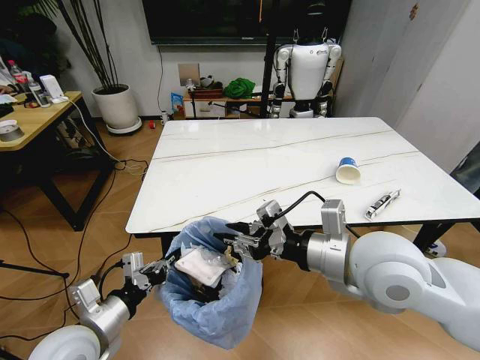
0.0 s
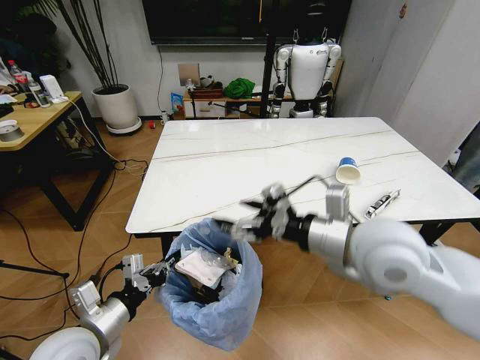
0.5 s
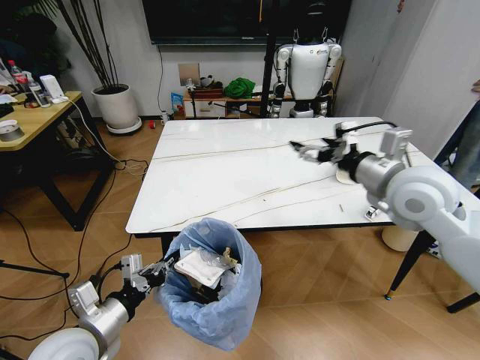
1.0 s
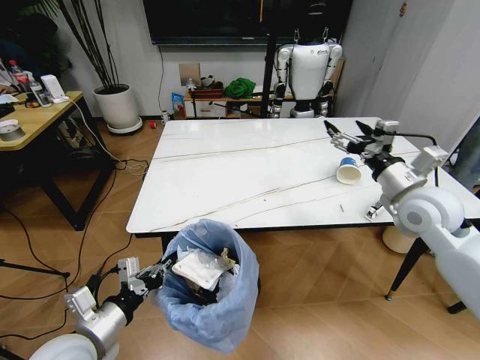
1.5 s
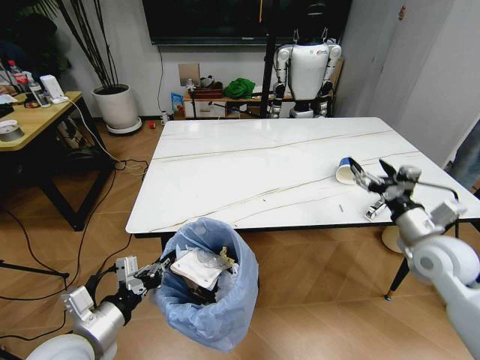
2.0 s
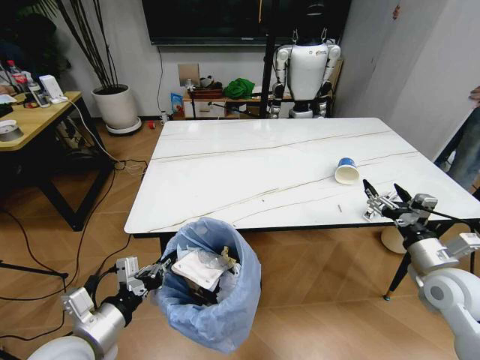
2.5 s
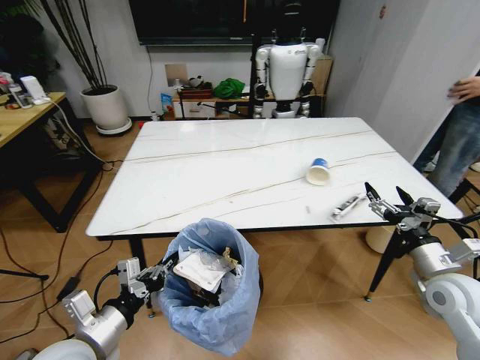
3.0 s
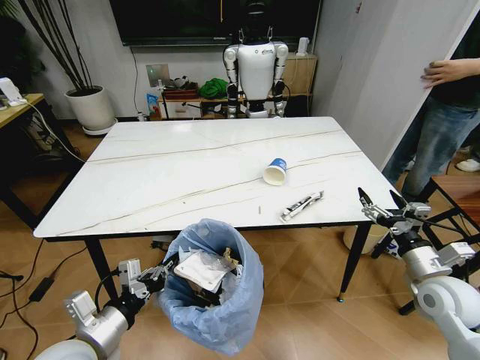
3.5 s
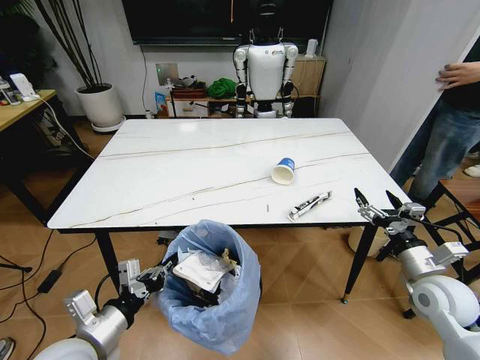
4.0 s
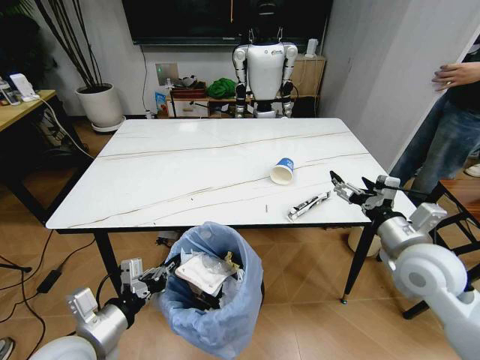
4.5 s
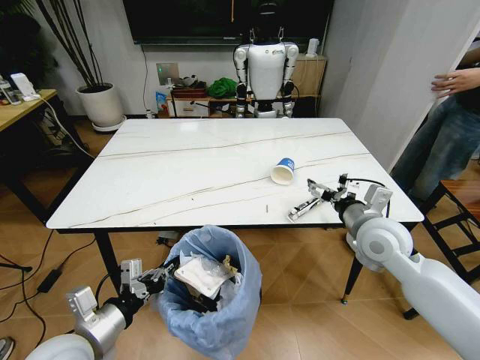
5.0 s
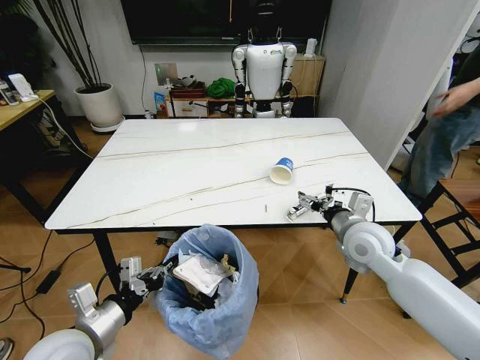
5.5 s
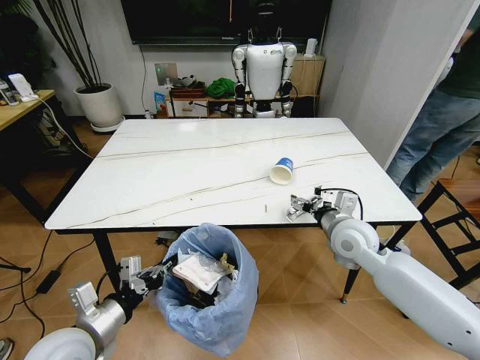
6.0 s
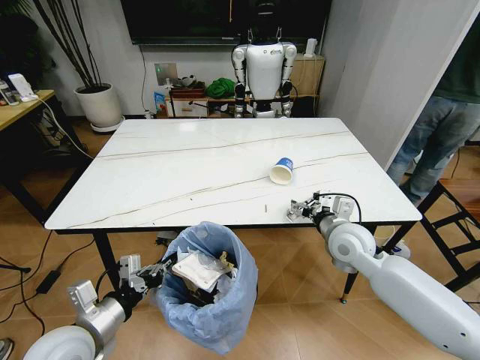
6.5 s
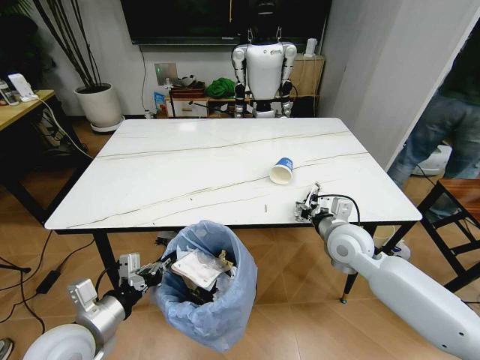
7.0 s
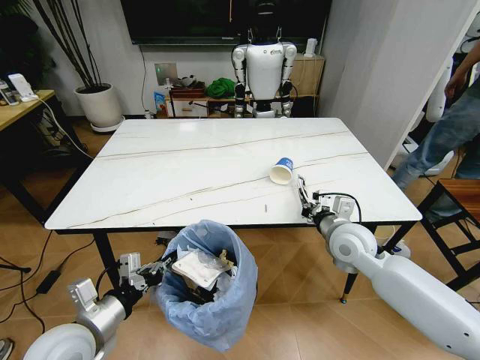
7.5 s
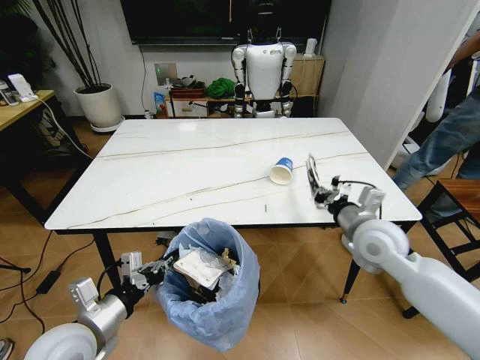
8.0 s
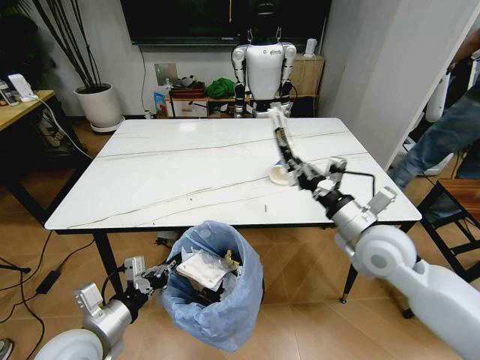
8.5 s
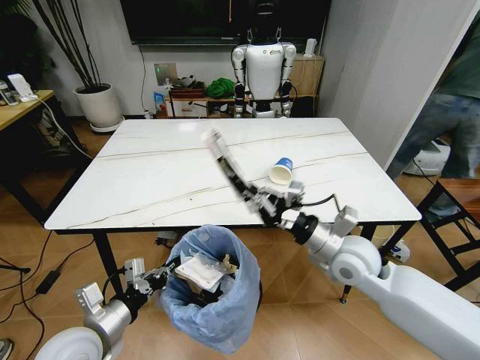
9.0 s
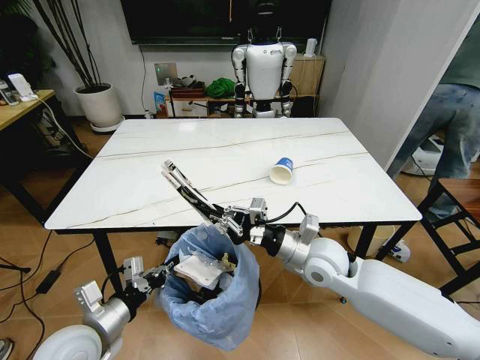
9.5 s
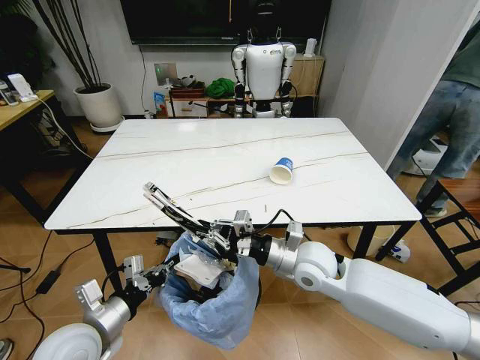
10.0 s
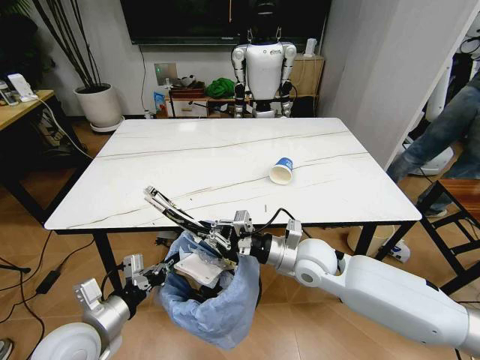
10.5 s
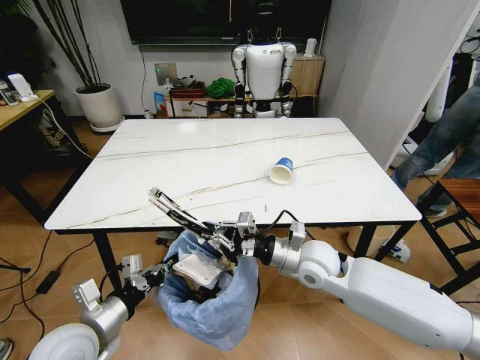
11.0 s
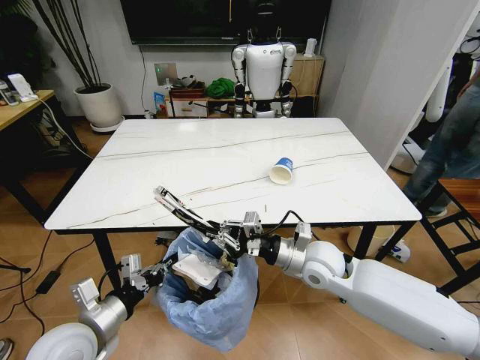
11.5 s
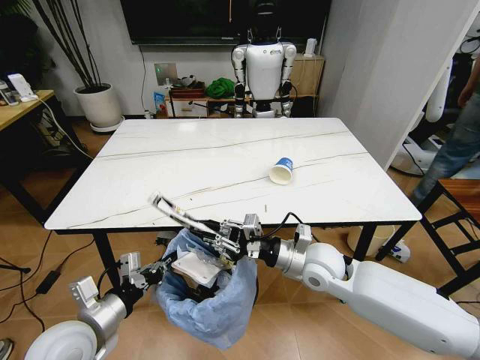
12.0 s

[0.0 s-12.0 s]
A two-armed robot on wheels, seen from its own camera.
Task of the whole recording: Pick up the trash bin and place the trash from the table into it.
0.0 to 2.0 s: The right gripper is displaced to the right and downward by some 20 cm, and opens its fingers.
2.0 to 4.0 s: The right gripper shifts some 10 cm downward and backward.
4.0 to 6.0 s: The right gripper is displaced to the left and forward by about 20 cm.
6.0 to 8.0 s: The right gripper shifts by approximately 5 cm, and closes.
8.0 to 10.0 s: The right gripper travels to the left and downward by roughly 15 cm.
10.0 to 12.0 s: The grippers stay close to where they were, moving slightly.

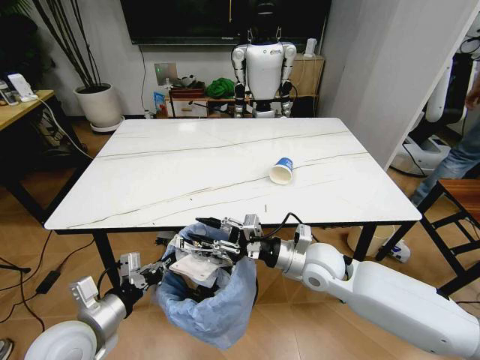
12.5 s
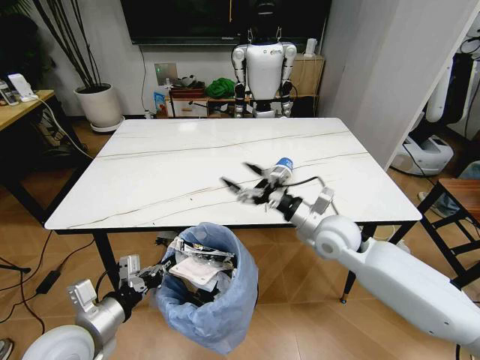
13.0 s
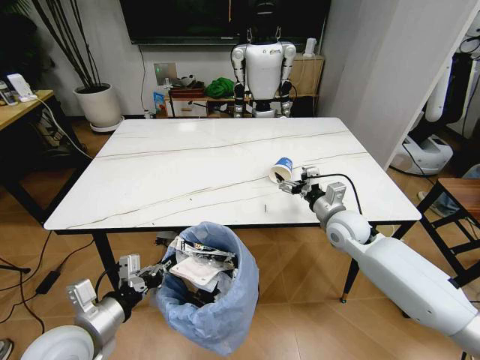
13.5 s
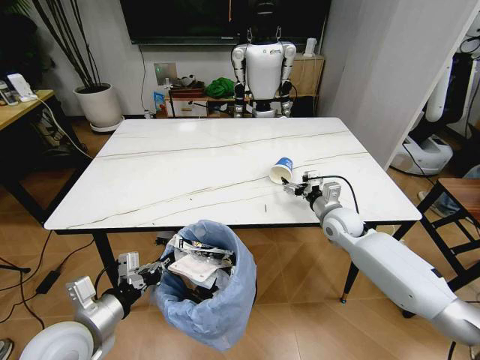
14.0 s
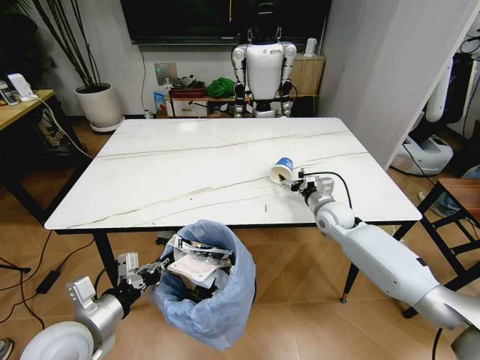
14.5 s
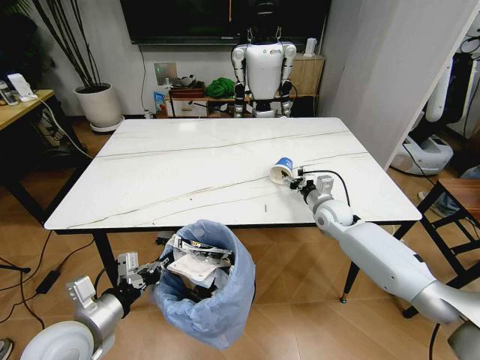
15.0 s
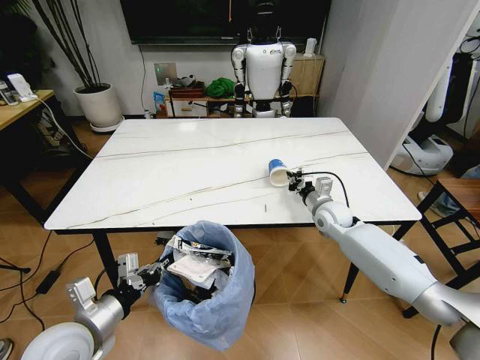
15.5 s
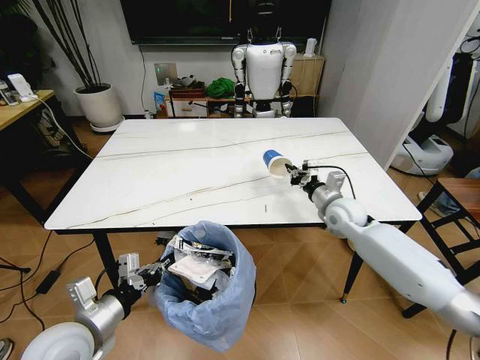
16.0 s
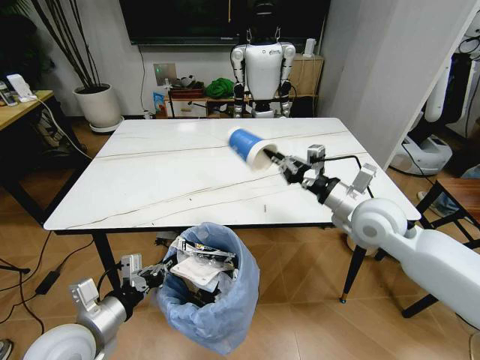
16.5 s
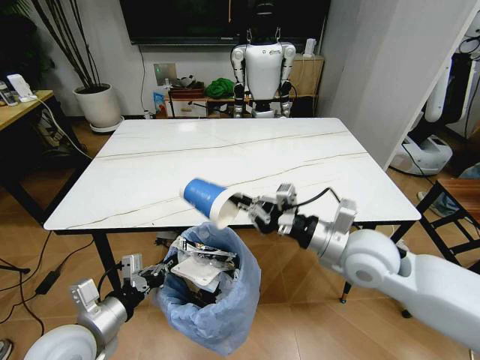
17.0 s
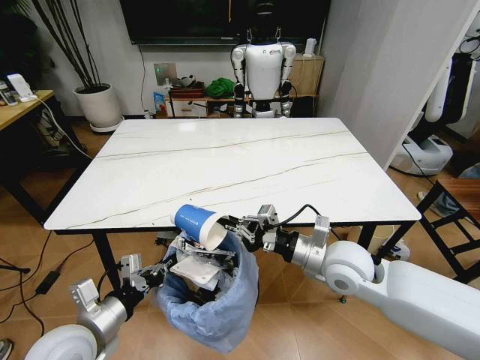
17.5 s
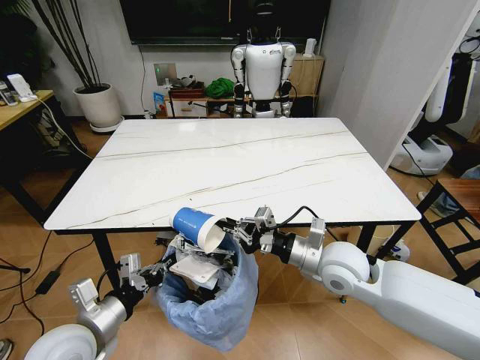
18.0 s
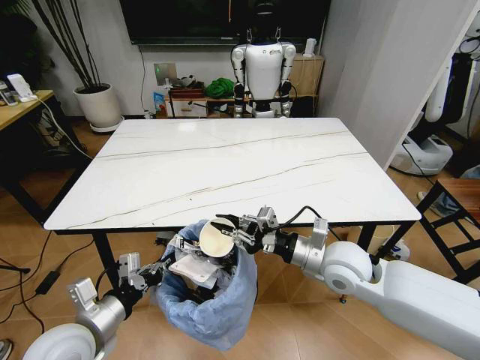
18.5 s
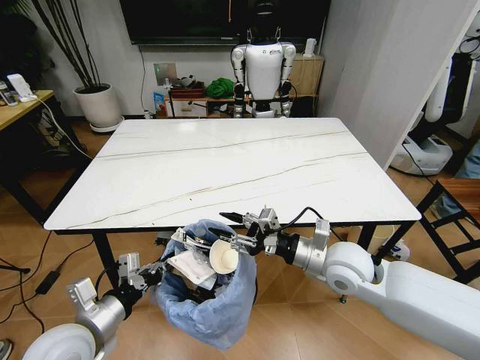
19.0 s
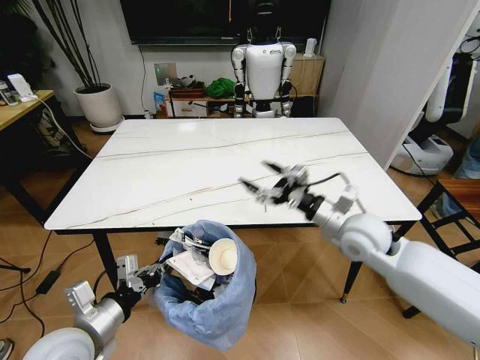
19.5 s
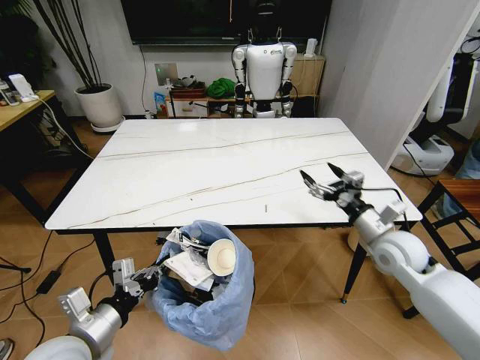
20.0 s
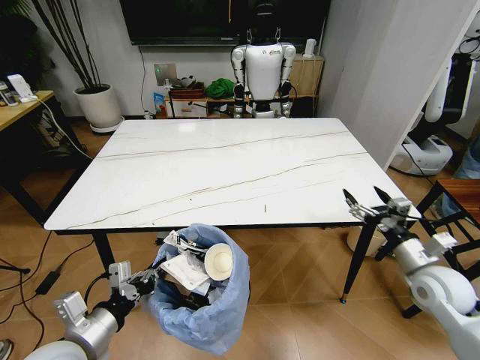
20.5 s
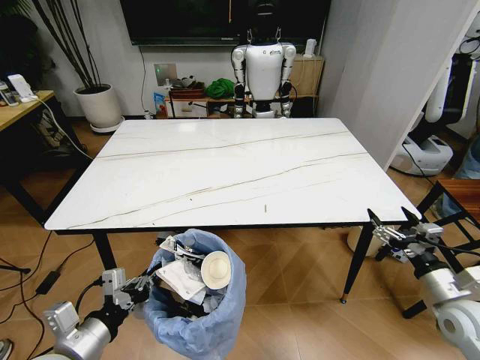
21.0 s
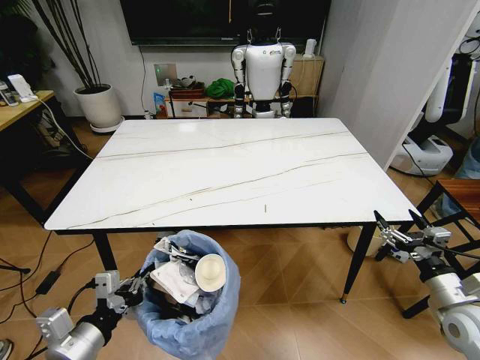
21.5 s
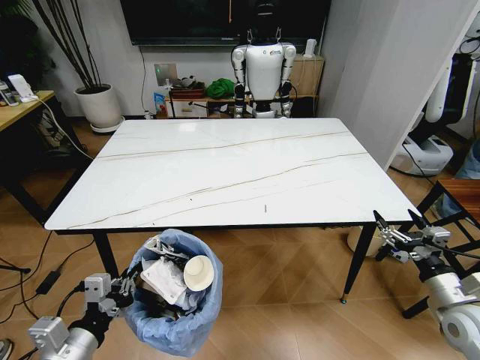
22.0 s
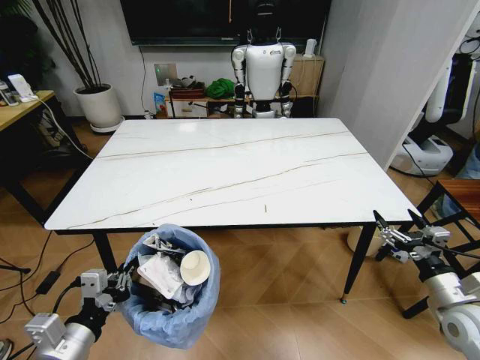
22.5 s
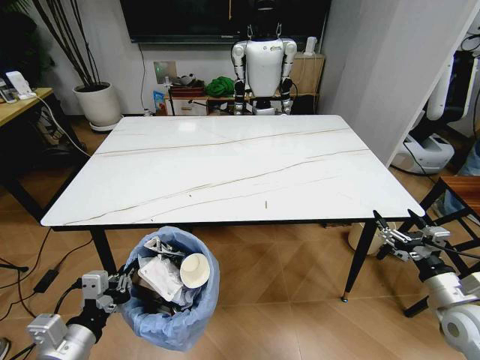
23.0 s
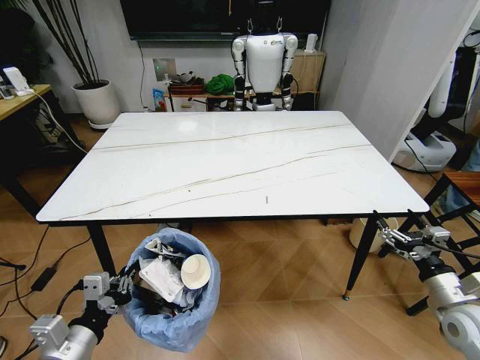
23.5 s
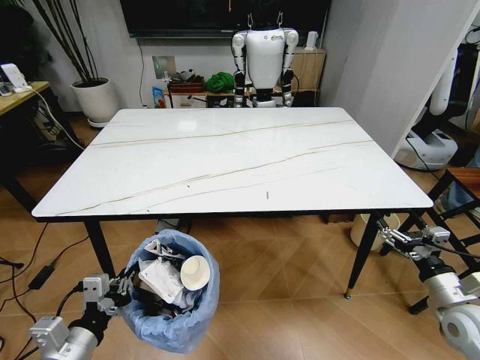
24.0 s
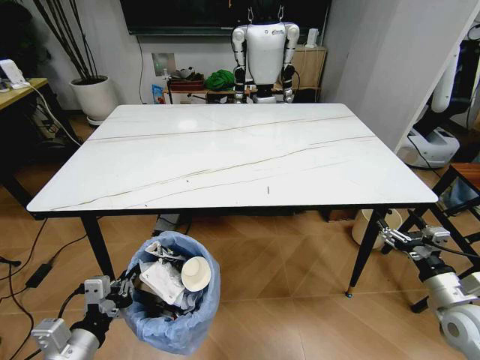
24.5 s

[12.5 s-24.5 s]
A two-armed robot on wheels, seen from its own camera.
Task of the whole recording: Pick up the trash bin and place the trash from the table into it.
12.5 to 14.5 s: The right gripper is displaced forward and to the right by approximately 20 cm, and opens up.
14.5 to 16.5 s: The right gripper moves upward and backward, roughly 20 cm, and closes its fingers.
16.5 to 18.5 s: The right gripper goes some 10 cm to the left, backward and downward.
18.5 to 20.5 s: The right gripper moves to the right, approximately 20 cm, and opens.
20.5 to 22.5 s: The right gripper shifts approximately 5 cm backward.

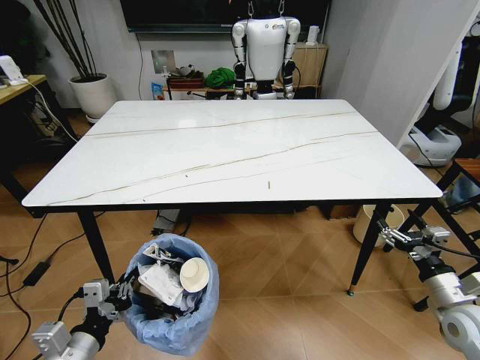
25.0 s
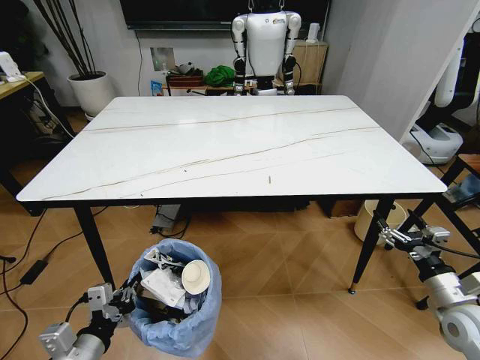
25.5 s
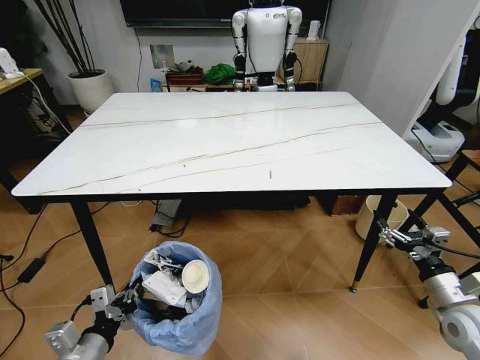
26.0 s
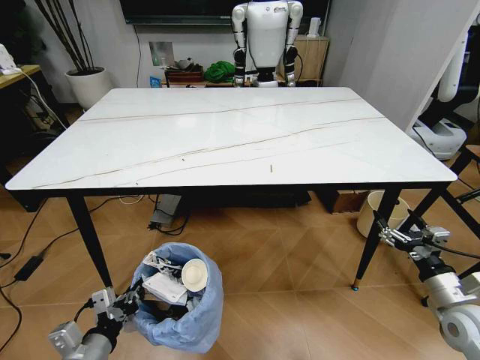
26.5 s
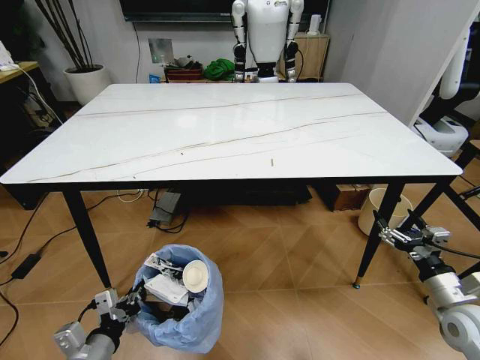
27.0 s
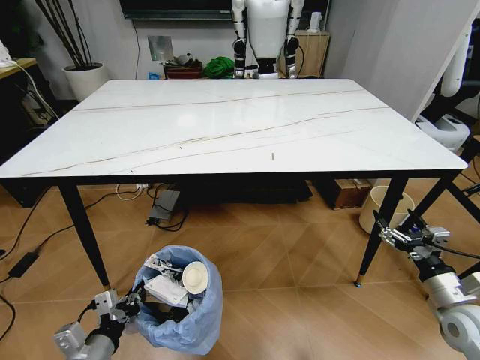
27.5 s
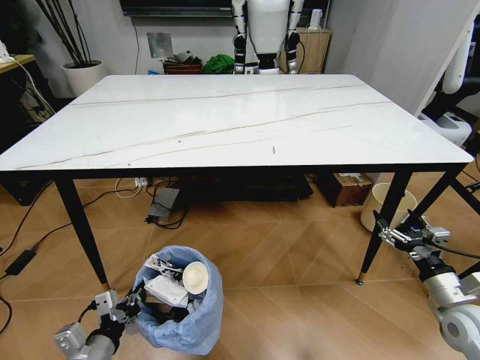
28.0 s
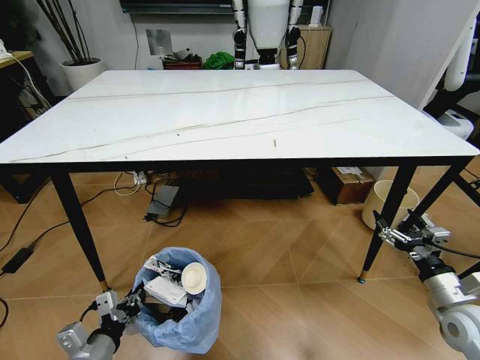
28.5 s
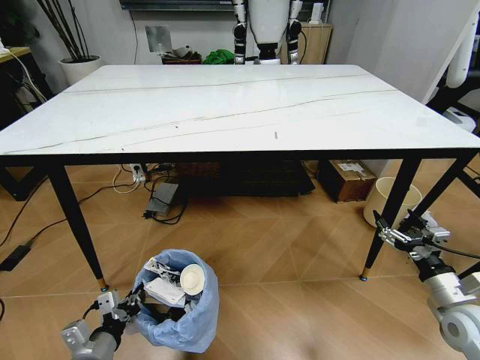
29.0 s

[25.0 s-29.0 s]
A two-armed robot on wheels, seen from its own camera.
Task of the whole recording: Pick up the trash bin and place the trash from the table into it.
25.0 to 27.0 s: The left gripper is displaced downward by about 5 cm.
